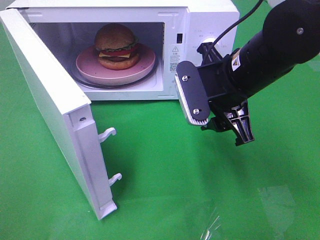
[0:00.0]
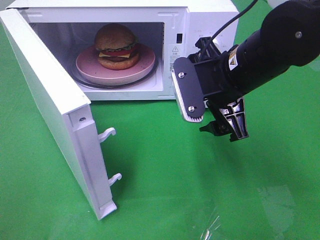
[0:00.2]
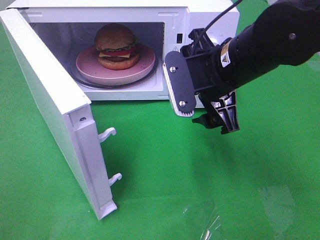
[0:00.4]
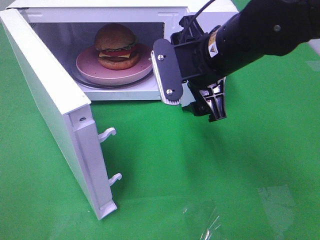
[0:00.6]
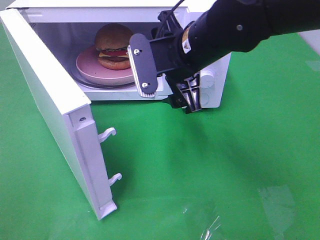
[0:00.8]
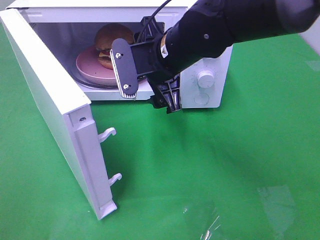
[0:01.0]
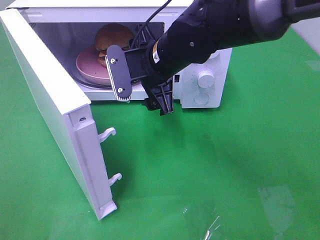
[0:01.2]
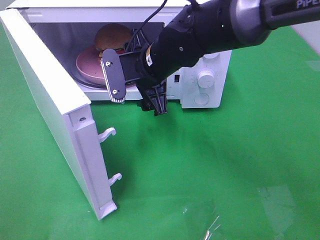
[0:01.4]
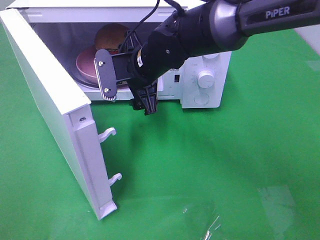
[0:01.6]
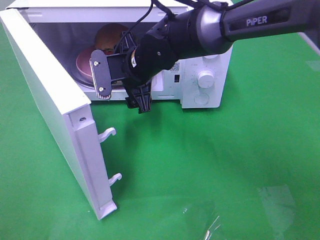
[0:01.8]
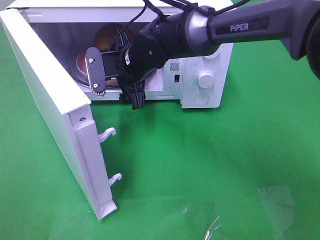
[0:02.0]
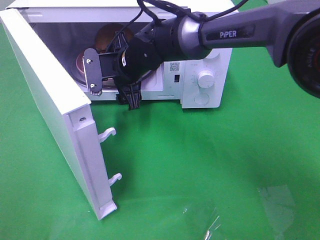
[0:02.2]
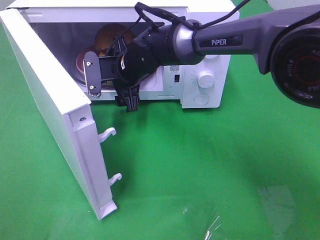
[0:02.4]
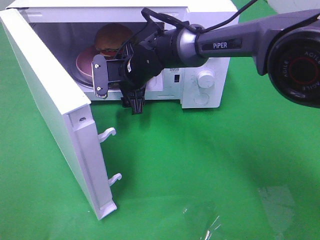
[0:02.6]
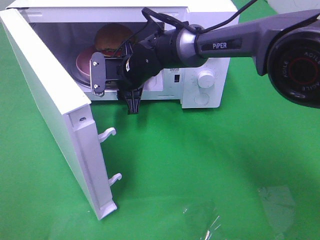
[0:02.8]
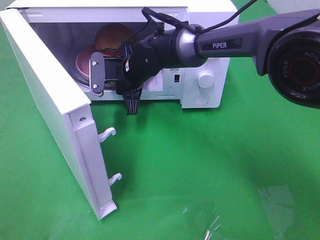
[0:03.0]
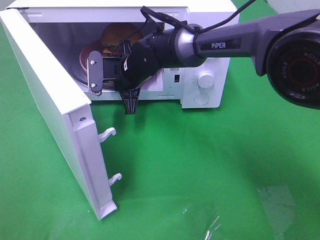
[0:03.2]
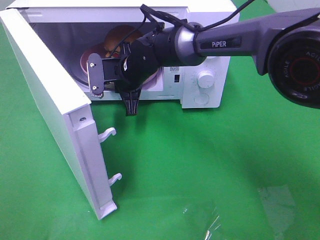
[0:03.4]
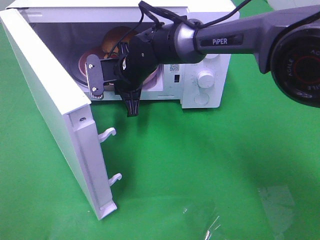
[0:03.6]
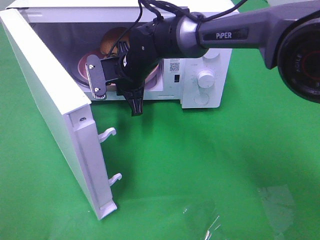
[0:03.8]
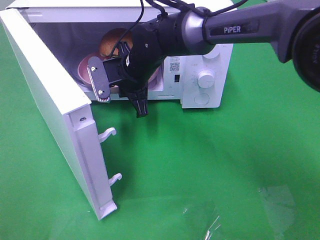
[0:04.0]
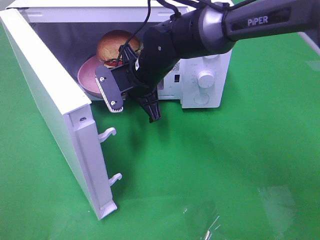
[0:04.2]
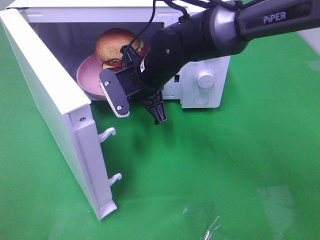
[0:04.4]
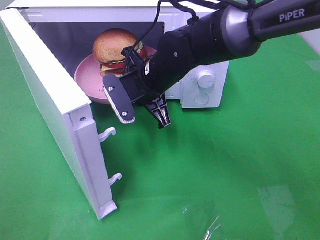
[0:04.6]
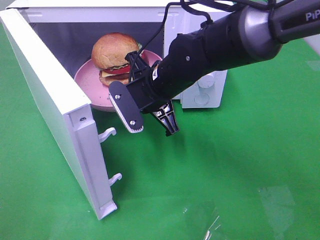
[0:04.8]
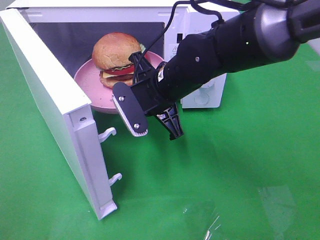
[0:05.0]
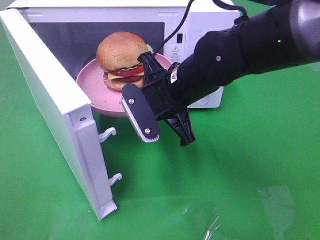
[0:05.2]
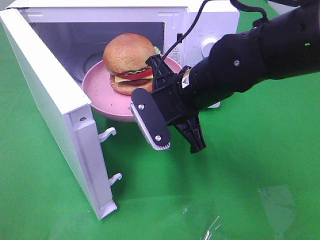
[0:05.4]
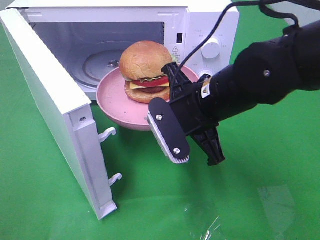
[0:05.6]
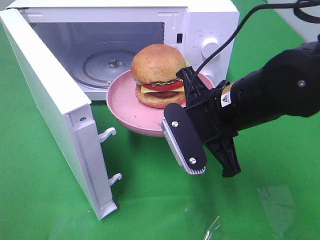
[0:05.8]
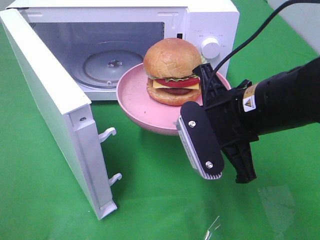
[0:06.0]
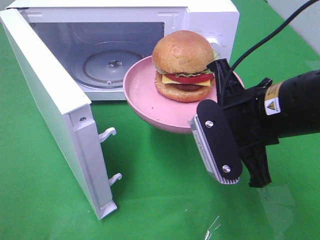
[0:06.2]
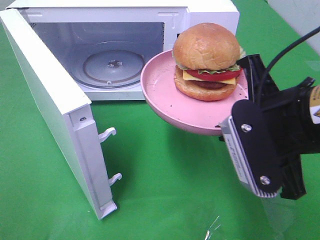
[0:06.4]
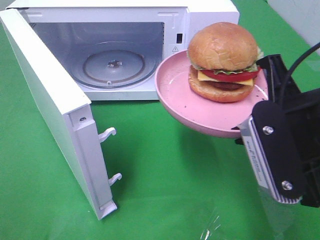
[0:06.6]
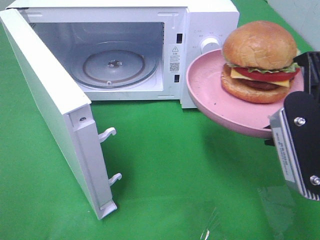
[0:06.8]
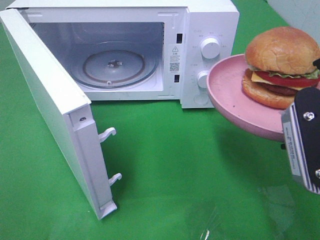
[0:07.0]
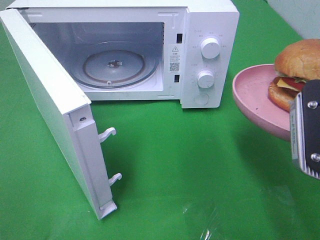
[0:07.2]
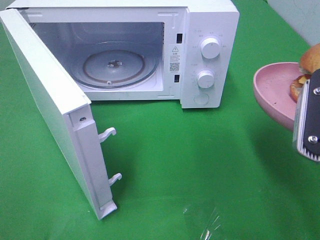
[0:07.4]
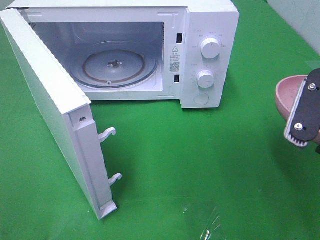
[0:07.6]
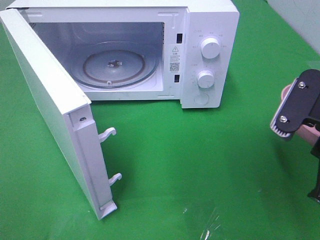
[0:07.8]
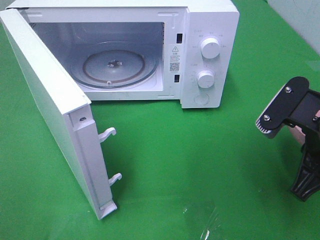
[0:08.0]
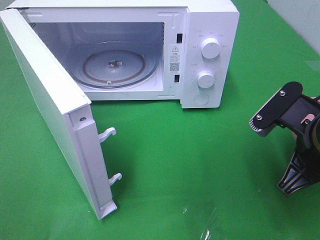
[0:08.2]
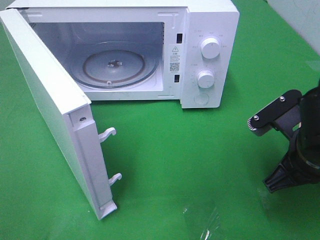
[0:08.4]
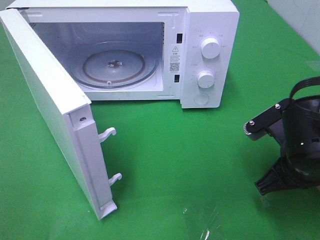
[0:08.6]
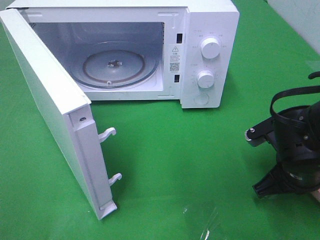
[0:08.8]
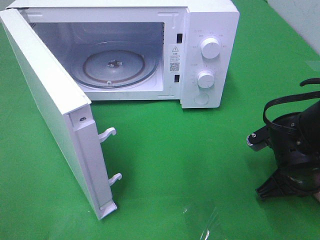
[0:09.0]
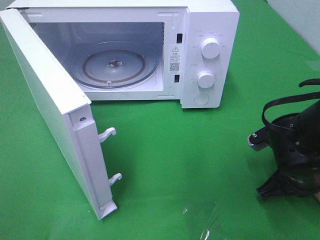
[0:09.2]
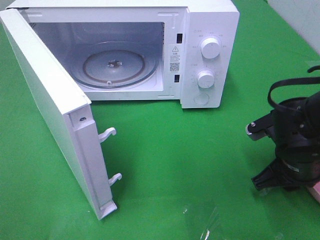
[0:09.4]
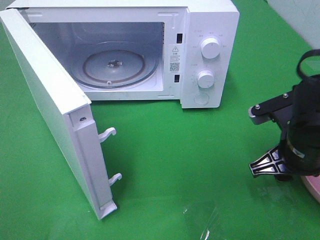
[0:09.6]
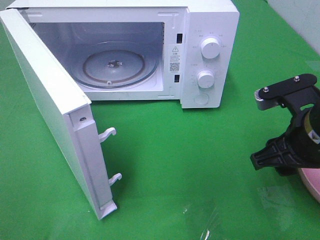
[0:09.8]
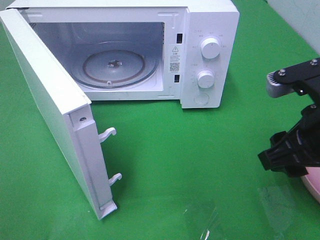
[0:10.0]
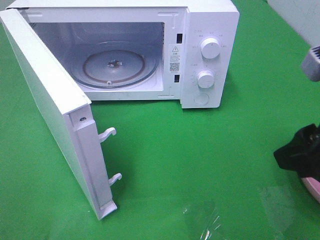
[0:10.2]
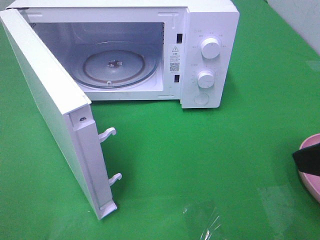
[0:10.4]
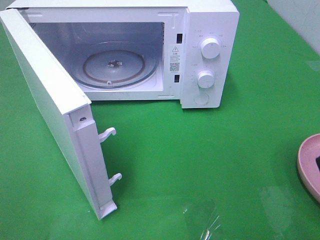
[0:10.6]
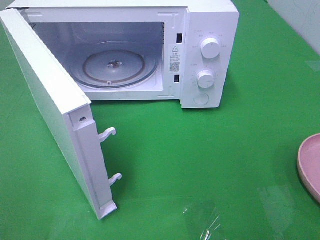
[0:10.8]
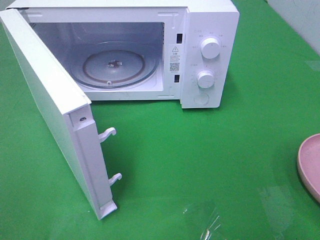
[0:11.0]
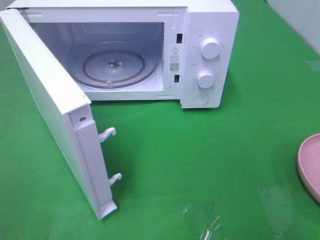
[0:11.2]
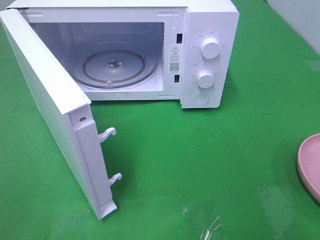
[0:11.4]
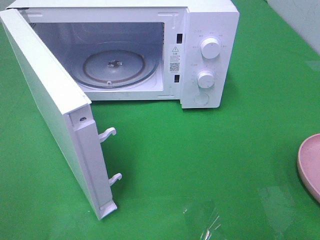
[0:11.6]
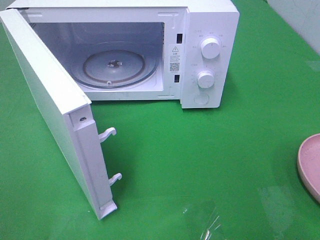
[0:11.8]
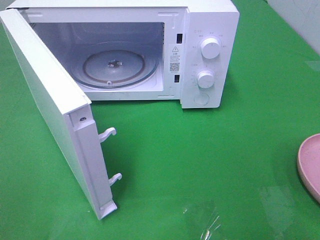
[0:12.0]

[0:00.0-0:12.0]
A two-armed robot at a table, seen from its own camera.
Task of the whole recording: Heat the burger.
Step, 0:00.0 to 0:03.4: Right hand: grab the plate with the hamburger.
Step, 0:03.6 to 0:09.4: Right hand: place the plate on the table.
0:00.0 to 0:01.6: The right gripper goes about 15 cm to the left and forward.
0:01.6 to 0:03.0: The right gripper shifts by some 5 cm, and closes up.
0:03.0 to 0:04.4: The right gripper moves backward, about 5 cm.
0:04.4 to 0:06.0: The right gripper travels backward and to the right by roughly 20 cm.
0:06.0 to 0:07.6: The right gripper is displaced to the right and backward by roughly 10 cm.
0:07.6 to 0:09.0: The right gripper shifts approximately 15 cm downward and forward.
0:09.0 to 0:10.4: The right gripper moves upward and backward, about 20 cm, and opens up.
0:10.4 to 0:12.0: The right gripper travels backward and to the right by some 15 cm.

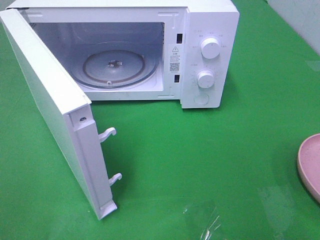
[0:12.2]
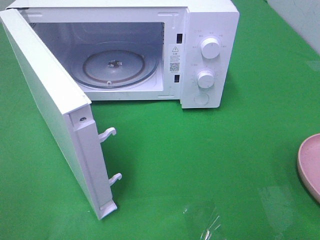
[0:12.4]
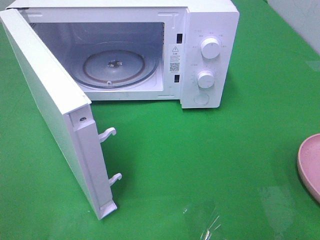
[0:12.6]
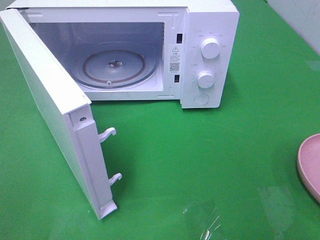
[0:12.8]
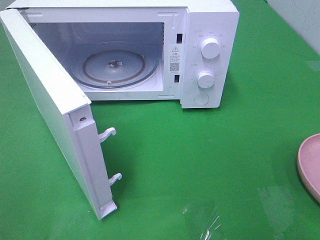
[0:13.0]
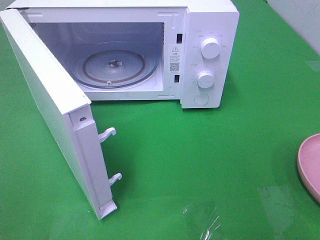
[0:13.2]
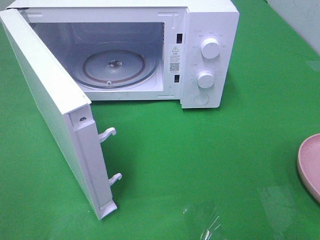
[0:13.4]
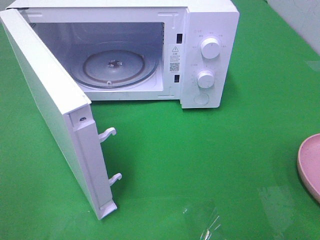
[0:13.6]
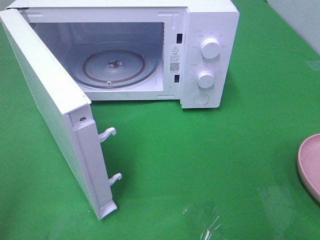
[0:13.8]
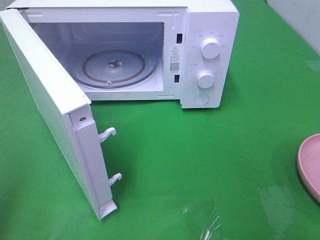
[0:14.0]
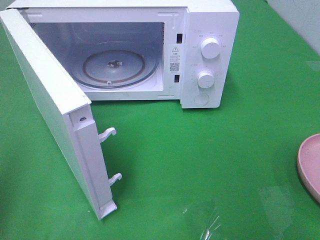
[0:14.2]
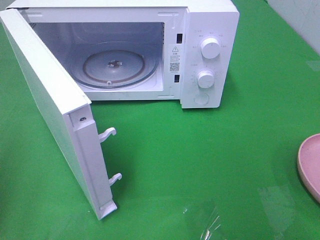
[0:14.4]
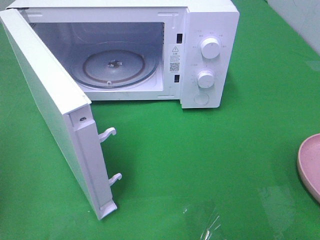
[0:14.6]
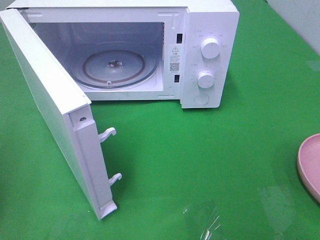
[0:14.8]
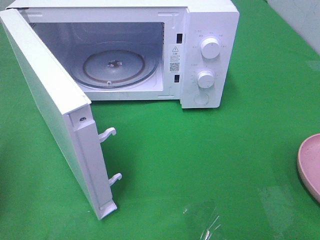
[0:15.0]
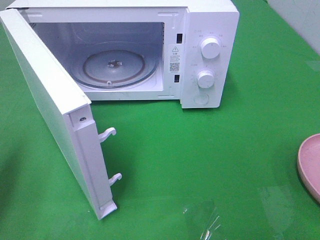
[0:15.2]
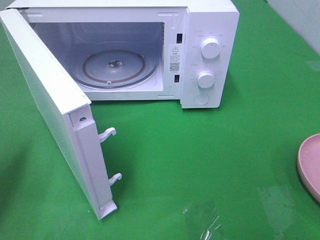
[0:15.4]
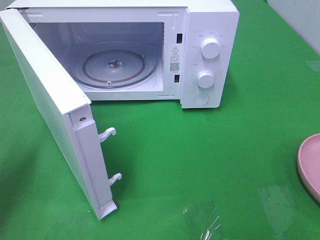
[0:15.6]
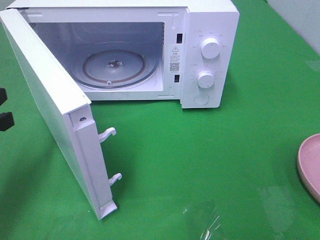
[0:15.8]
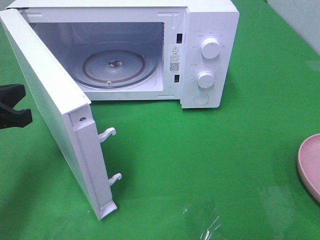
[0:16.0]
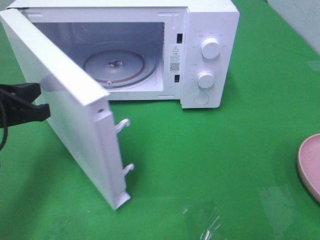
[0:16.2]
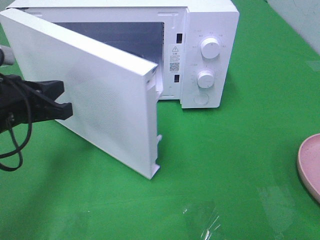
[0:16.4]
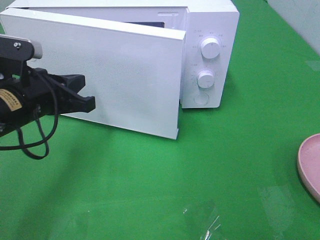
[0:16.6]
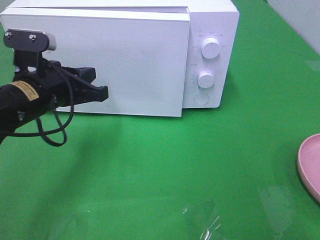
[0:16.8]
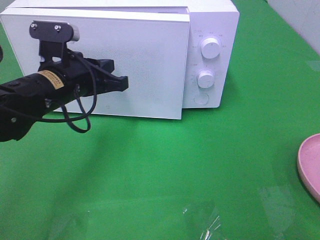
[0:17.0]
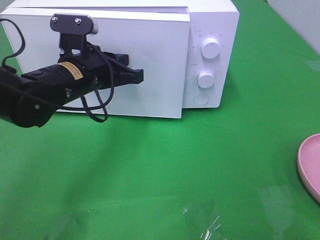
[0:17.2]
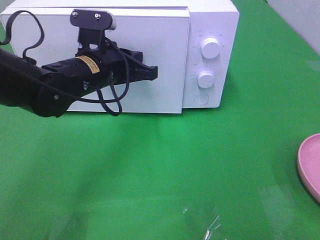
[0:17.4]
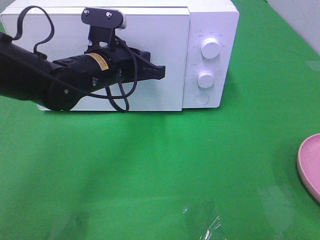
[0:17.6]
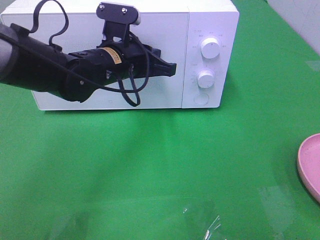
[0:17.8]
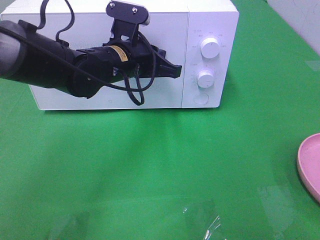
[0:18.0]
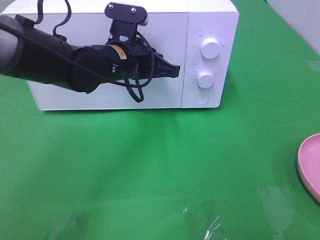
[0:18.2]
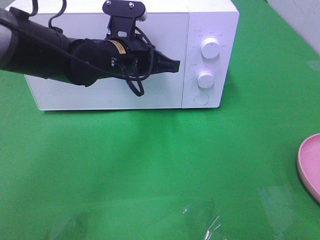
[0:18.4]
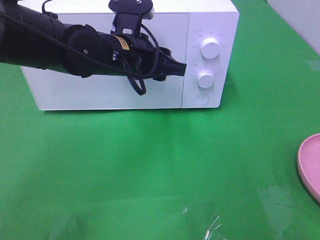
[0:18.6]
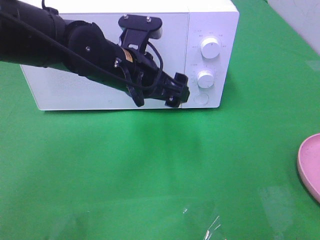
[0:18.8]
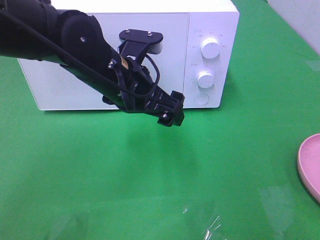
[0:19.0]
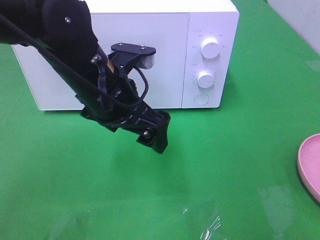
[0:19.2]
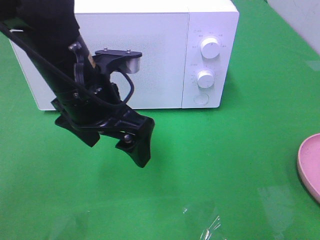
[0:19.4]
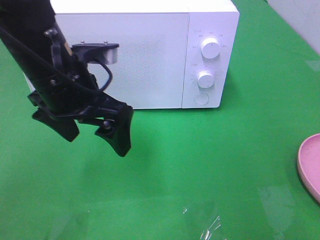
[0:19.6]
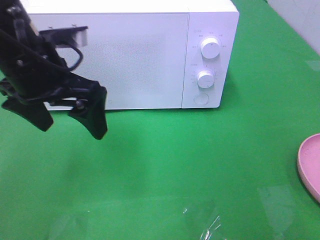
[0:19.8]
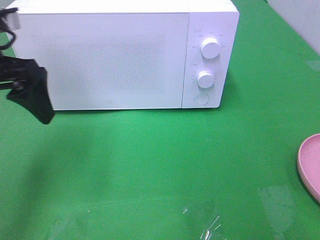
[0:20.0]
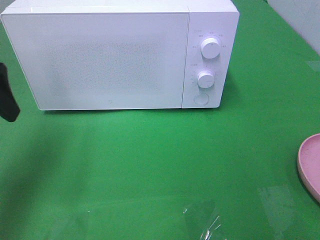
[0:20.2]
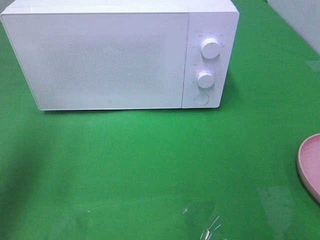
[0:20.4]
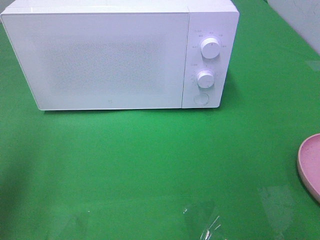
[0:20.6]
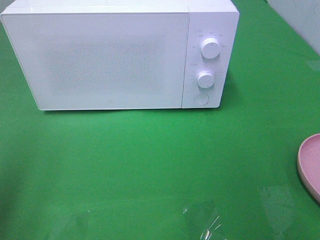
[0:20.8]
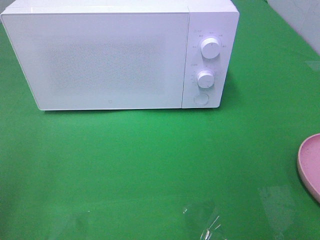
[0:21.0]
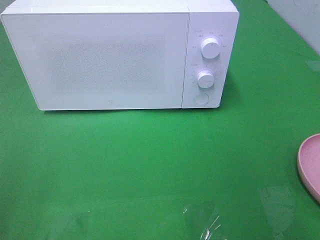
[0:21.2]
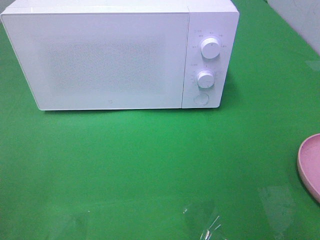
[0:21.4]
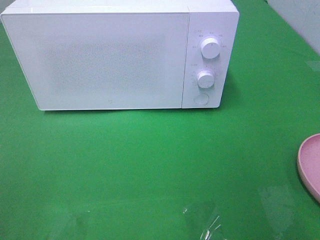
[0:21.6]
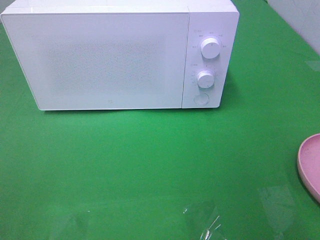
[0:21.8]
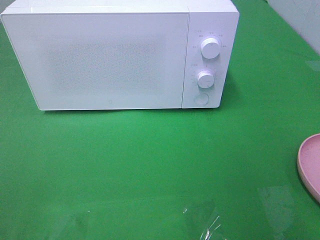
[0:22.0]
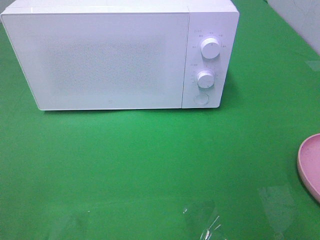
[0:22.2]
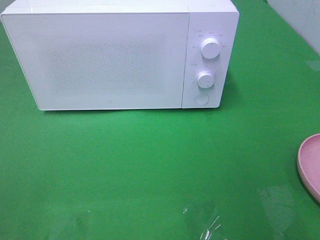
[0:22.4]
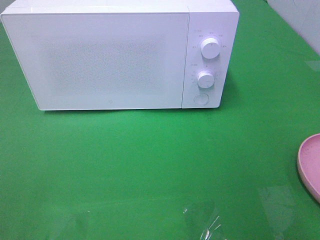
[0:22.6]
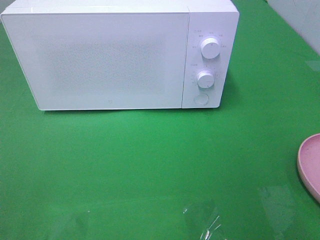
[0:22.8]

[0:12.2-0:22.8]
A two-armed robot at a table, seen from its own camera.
Task of the whole recording: Heat the burger.
Step, 0:12.2 to 0:18.8: Left hand: close the microwave door.
0:13.8 to 0:15.2: The left gripper goes approximately 20 cm forward and downward.
0:15.2 to 0:16.8: The left gripper shifts some 20 cm to the right and forward.
0:16.8 to 0:18.2: The left gripper shifts roughly 15 cm to the right and forward.
0:18.2 to 0:19.8: The left gripper is displaced to the left, backward and upward by approximately 15 cm, and opens up.
0:19.8 to 0:21.2: The left gripper is displaced backward and to the left by about 25 cm.
